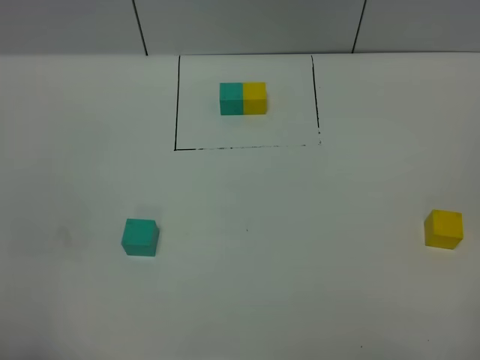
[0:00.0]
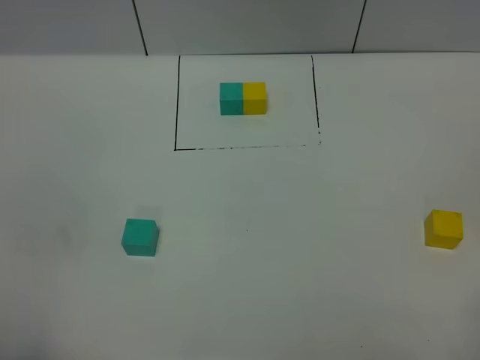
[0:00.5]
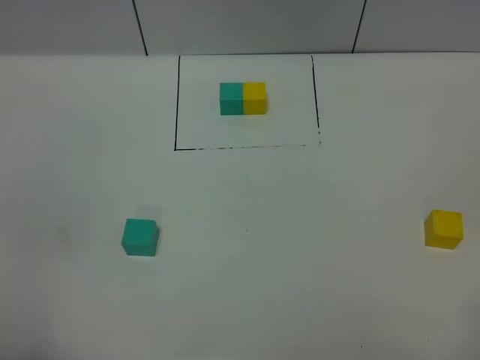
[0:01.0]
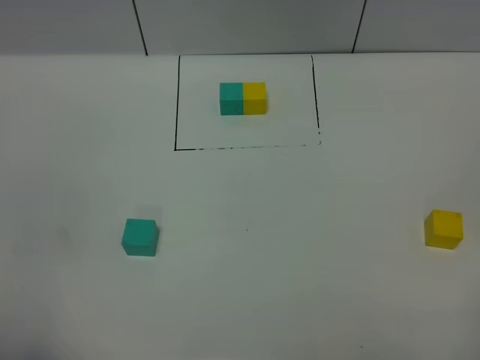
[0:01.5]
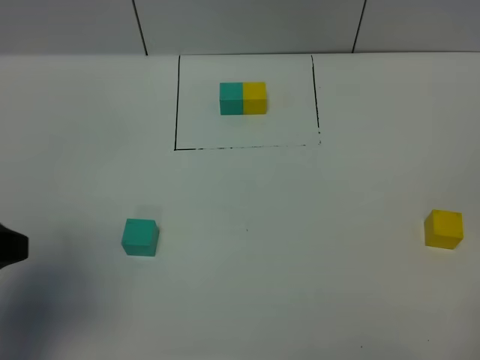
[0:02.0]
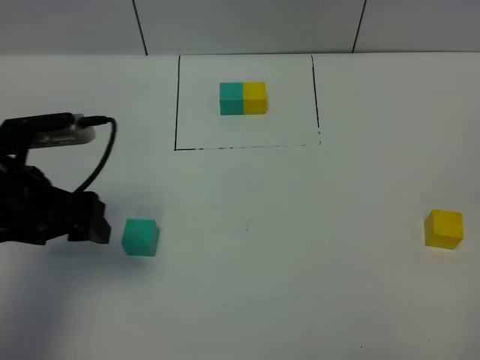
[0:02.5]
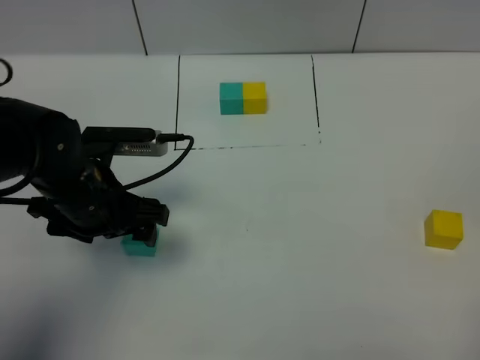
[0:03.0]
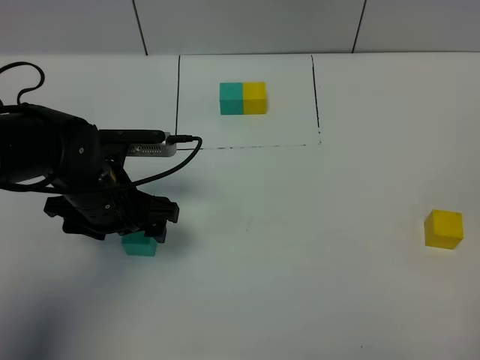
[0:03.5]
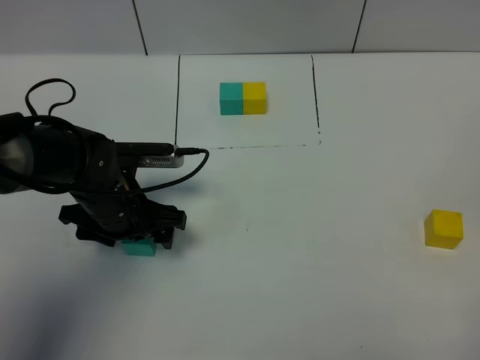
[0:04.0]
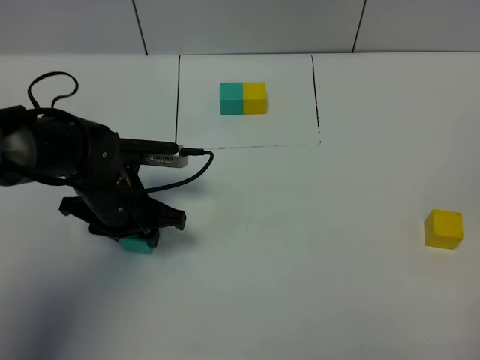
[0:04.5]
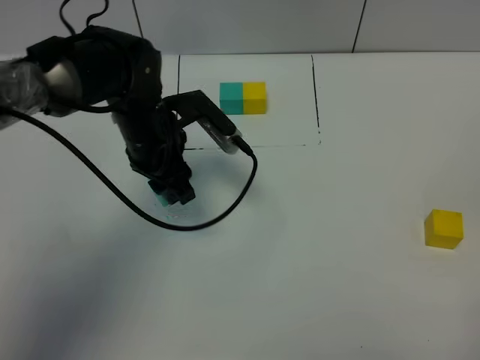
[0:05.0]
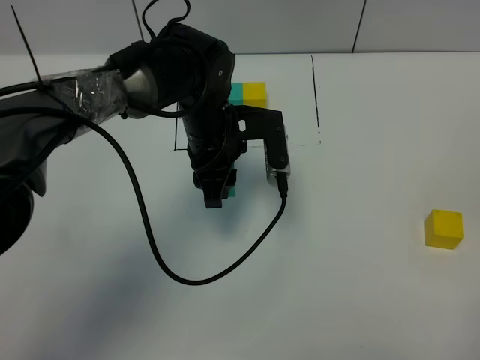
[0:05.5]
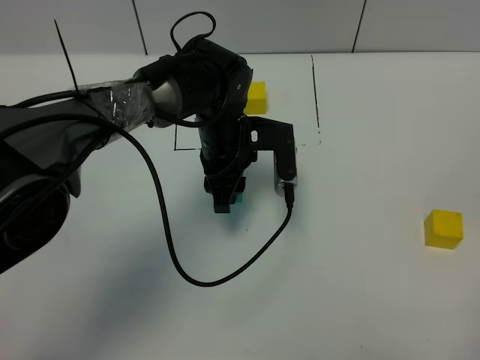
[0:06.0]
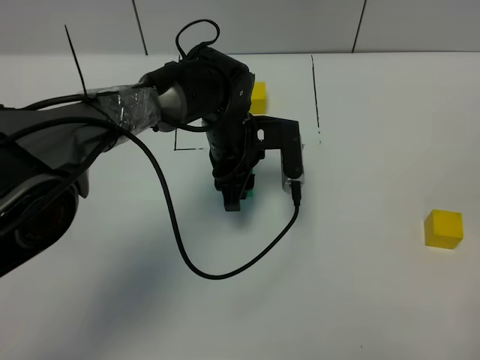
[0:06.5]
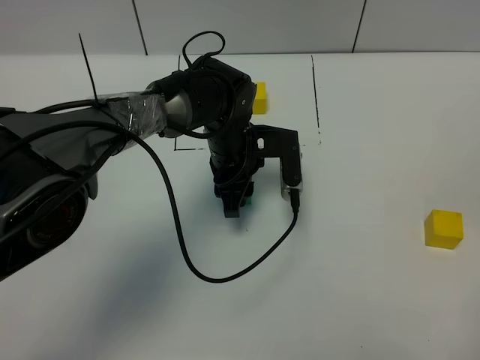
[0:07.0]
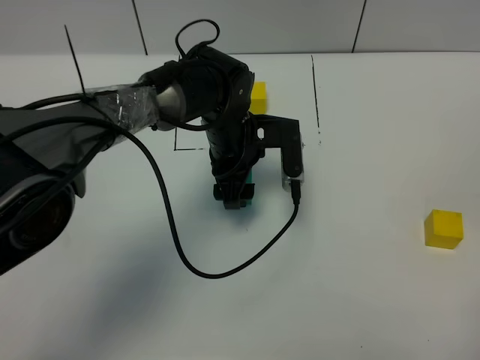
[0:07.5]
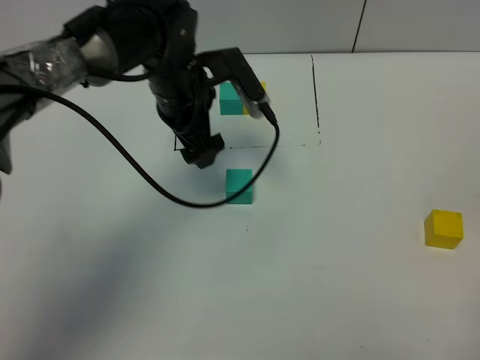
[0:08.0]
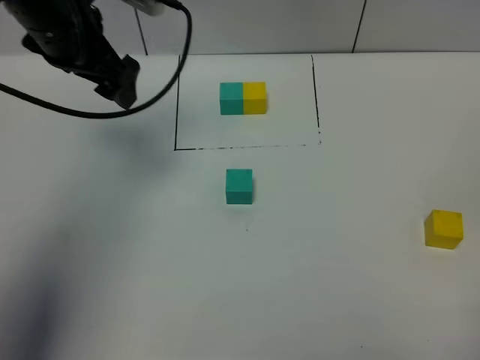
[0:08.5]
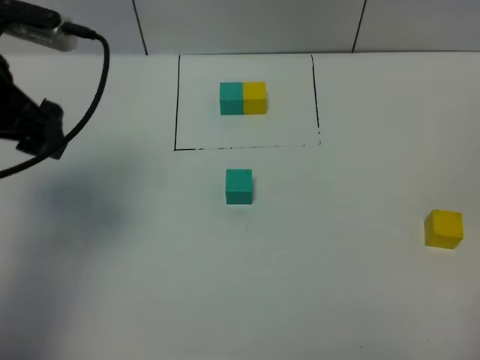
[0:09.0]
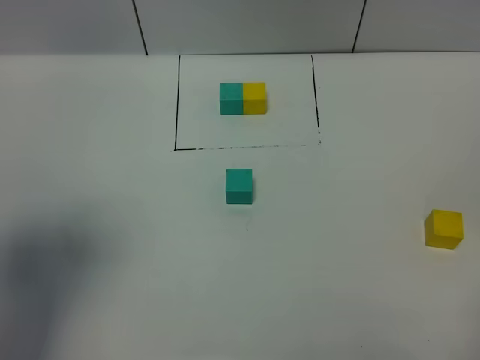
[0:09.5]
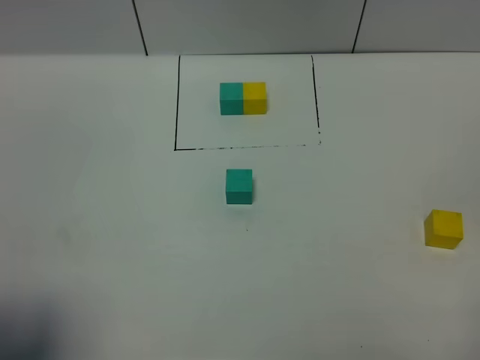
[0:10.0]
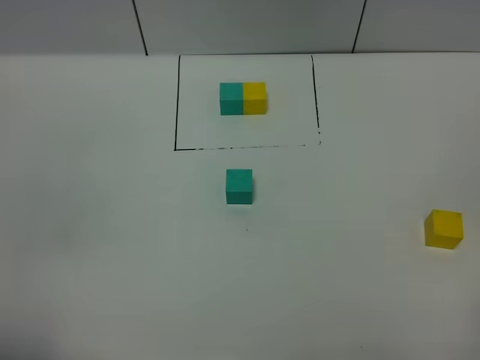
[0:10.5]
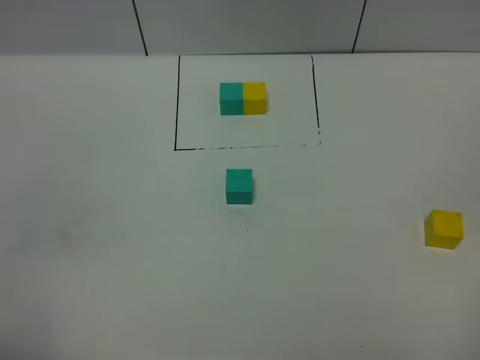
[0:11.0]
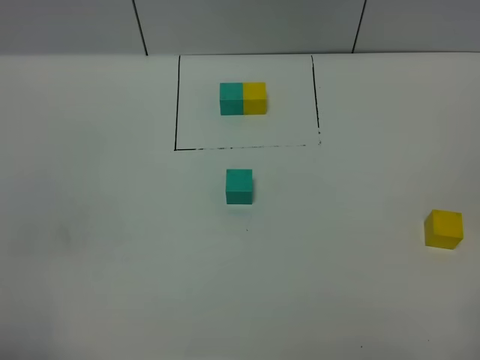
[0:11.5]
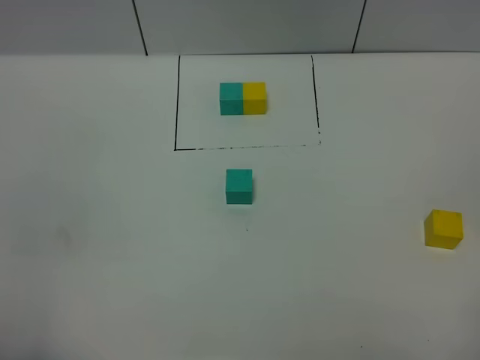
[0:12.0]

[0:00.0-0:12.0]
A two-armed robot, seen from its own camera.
Task of the whole recording: According to the building block template in front, assemble the scattered blocks together.
Step, 0:02.0 to 0:07.5: Put the green cube in the center of the table.
0:00.0 to 0:02.0: The left gripper shifts some 15 cm forward.
0:02.0 to 0:04.0: The left gripper travels downward, forward and to the right by about 25 cm.
0:04.0 to 0:06.0: The left gripper moves to the right and forward, about 15 cm, and closes.
0:06.0 to 0:08.0: The left gripper moves upward and to the left, approximately 10 cm, and opens.
0:08.0 to 0:10.0: The left gripper shifts some 40 cm backward and to the left.
0:10.0 to 0:12.0: The left gripper heads backward and downward, covering approximately 10 cm.

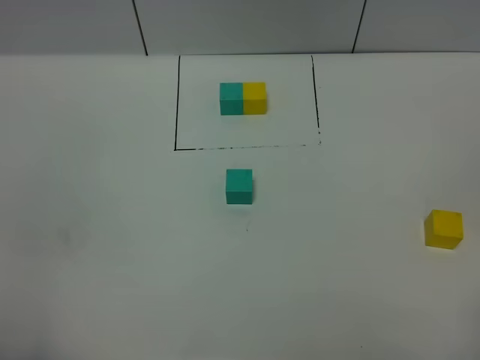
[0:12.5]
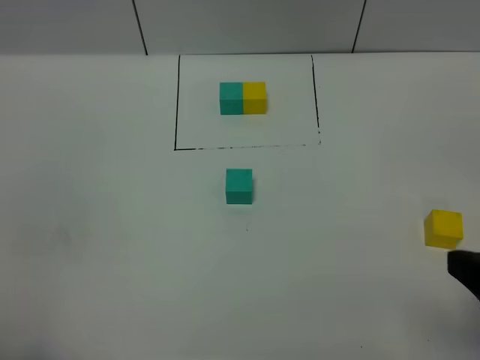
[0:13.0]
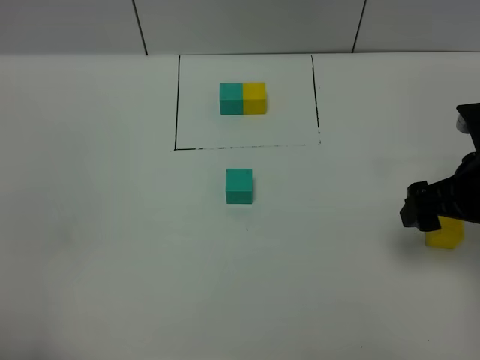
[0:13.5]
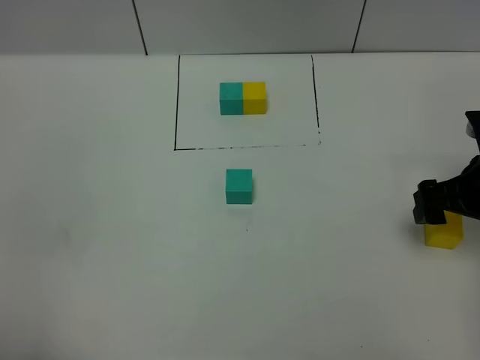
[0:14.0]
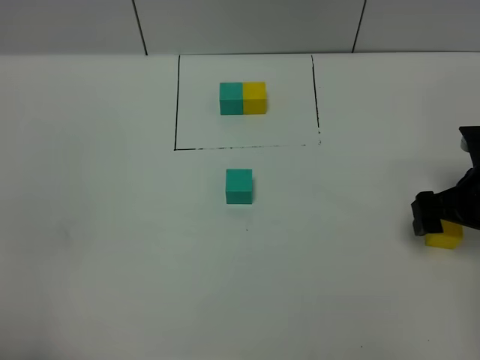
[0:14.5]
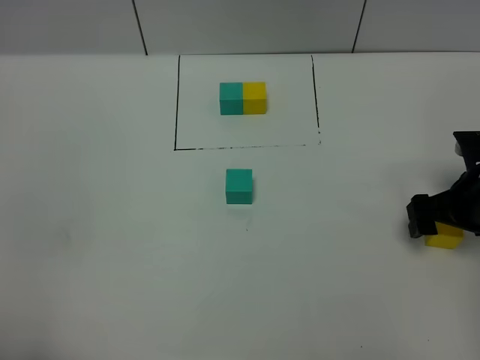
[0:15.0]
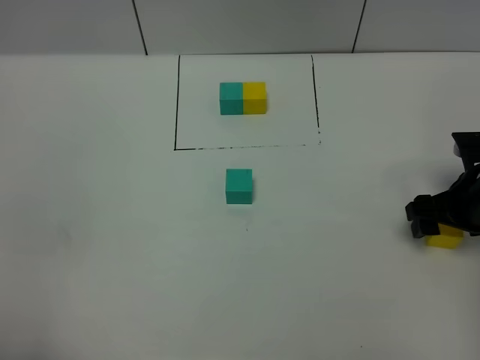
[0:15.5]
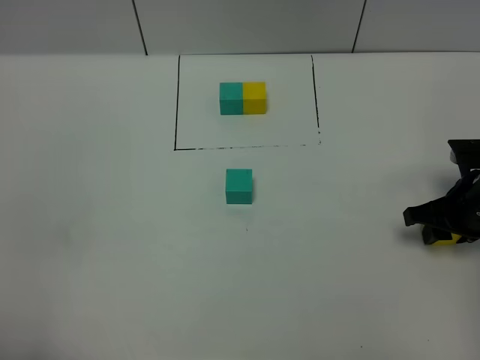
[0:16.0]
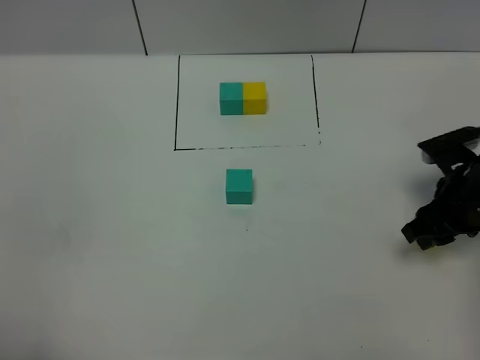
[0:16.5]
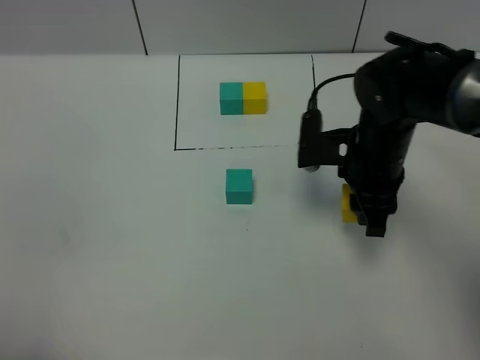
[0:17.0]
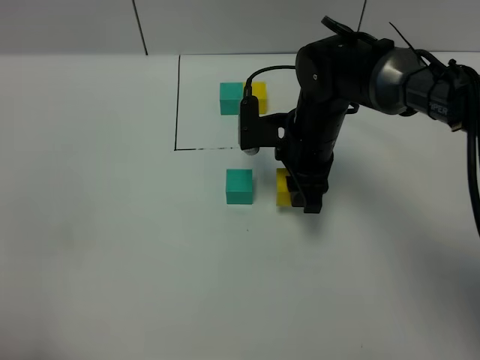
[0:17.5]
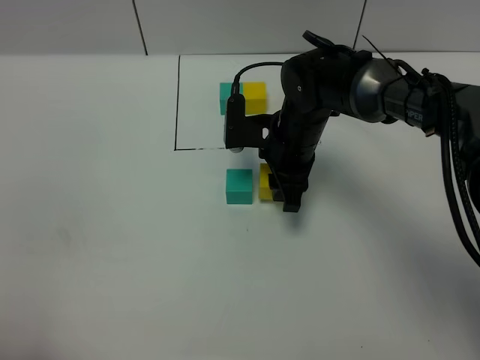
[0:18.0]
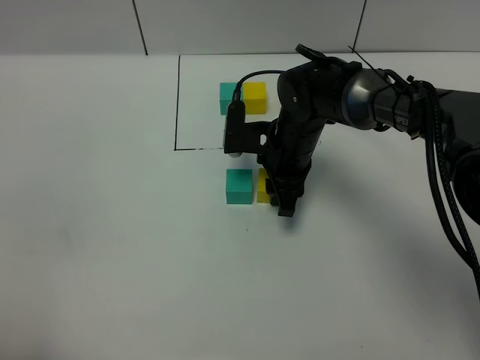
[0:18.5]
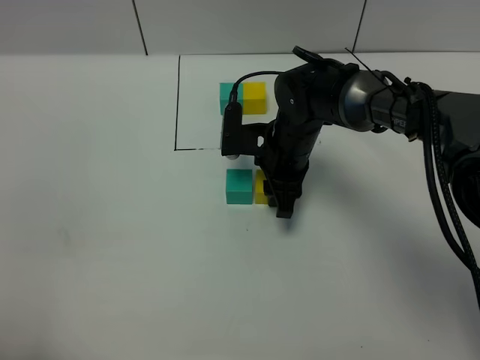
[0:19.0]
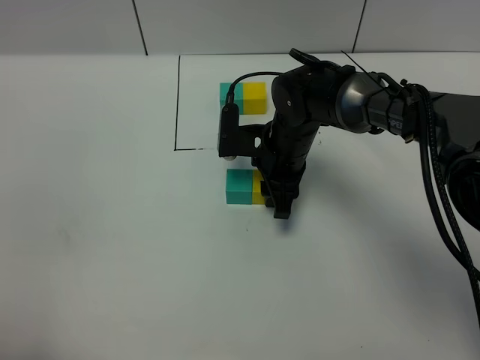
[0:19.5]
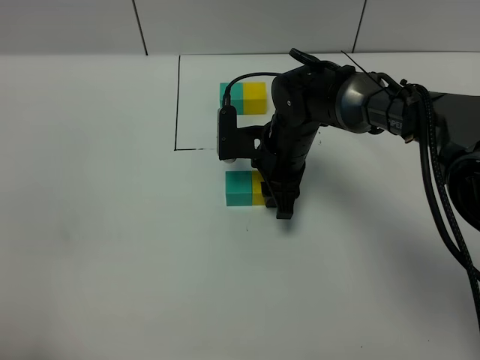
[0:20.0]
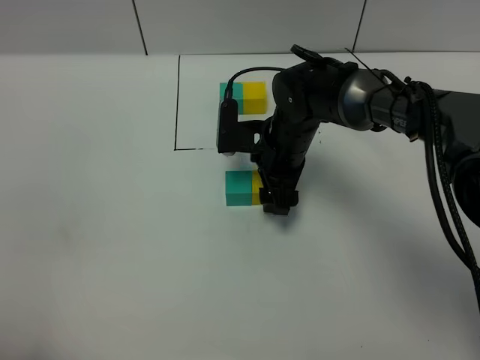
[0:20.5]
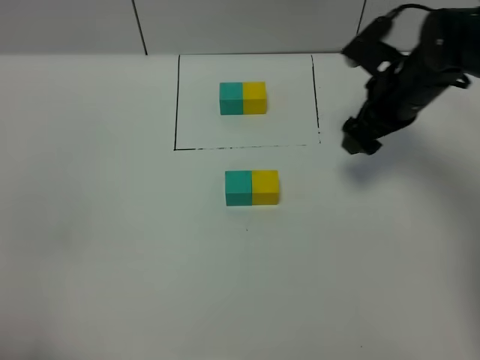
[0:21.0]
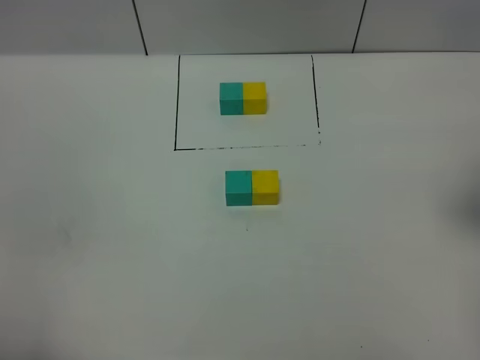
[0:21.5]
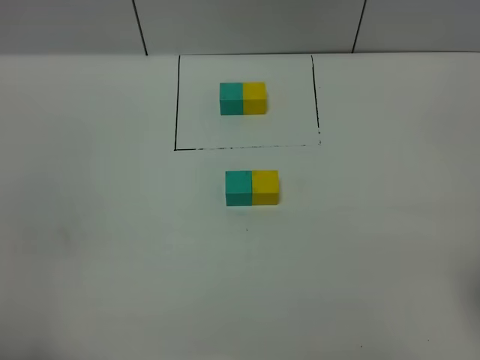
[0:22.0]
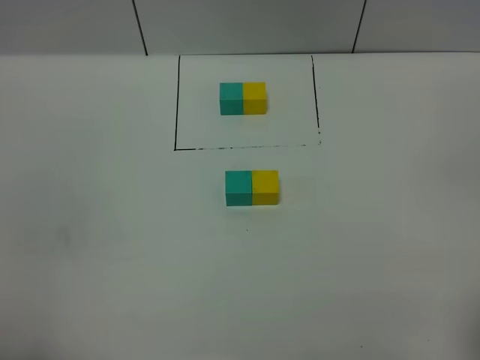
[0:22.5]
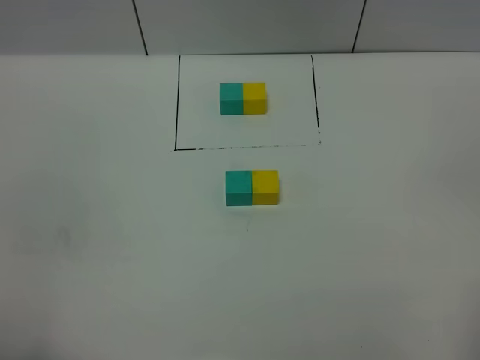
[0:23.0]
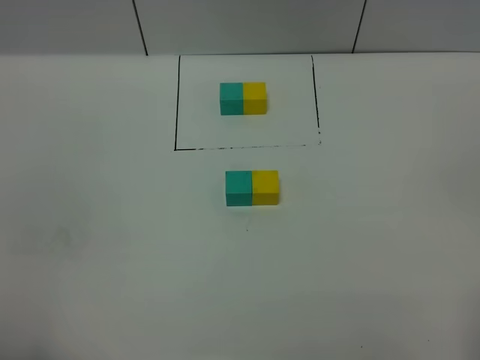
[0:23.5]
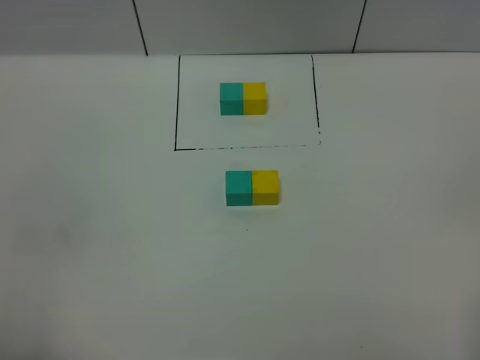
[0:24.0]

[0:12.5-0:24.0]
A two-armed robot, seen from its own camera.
Task of the whole recording: According to the building block template in front, assemble the scattered blocks together.
Step, 0:12.5 to 0:20.5: Put the yellow cube on the right of the green cube.
0:12.5 to 0:14.5: The right gripper shifts some 30 cm forward and downward.
0:14.5 to 0:16.5: The right gripper closes.
0:16.5 to 0:18.5: The right gripper goes approximately 20 cm to the left and forward.
0:18.5 to 0:20.0: Both grippers stay put.
0:20.0 to 0:22.0: The right gripper travels backward, to the right and upward by about 40 cm, and opens its fingers.

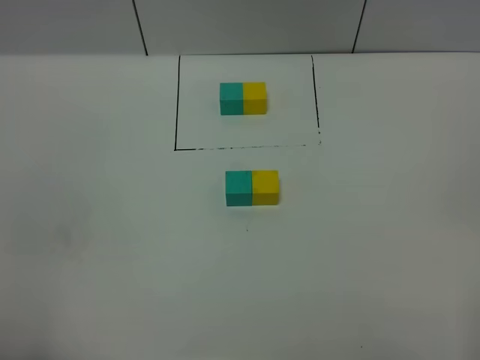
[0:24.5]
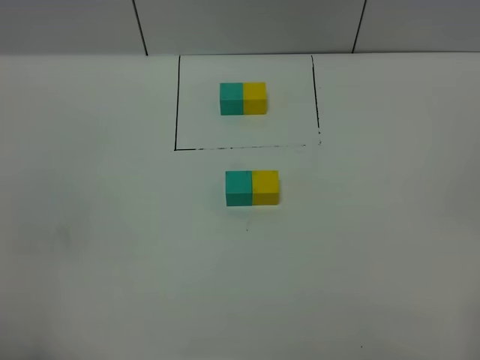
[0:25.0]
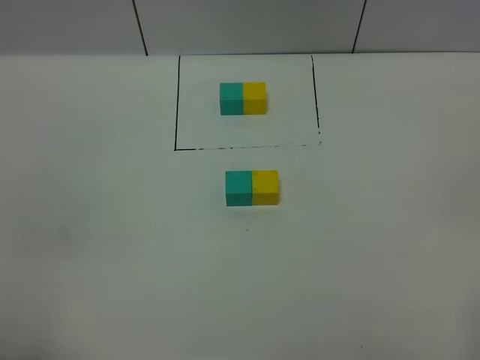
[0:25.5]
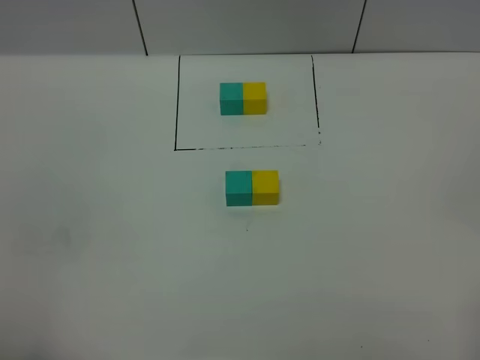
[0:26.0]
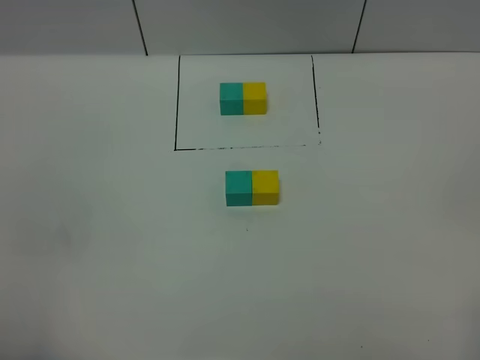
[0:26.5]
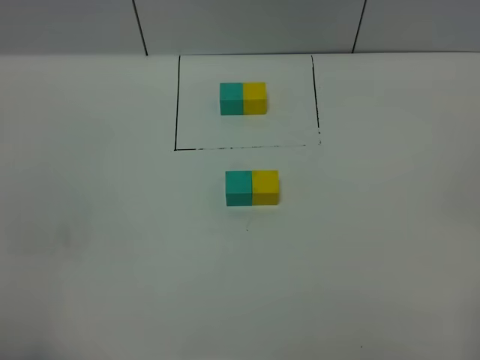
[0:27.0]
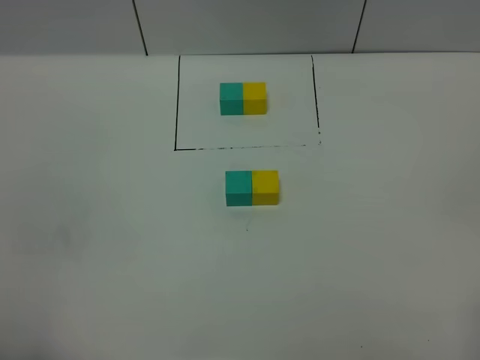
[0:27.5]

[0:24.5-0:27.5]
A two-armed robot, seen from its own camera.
Task of the whole recording: According to the building block template in front, assemble the scattered blocks together.
0:24.5 to 0:27.5: Both grippers stay about where they are.
